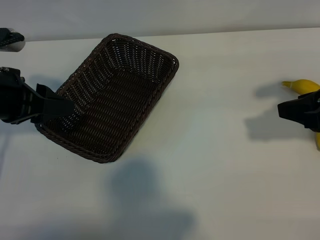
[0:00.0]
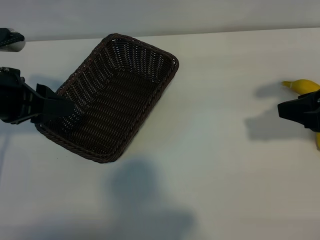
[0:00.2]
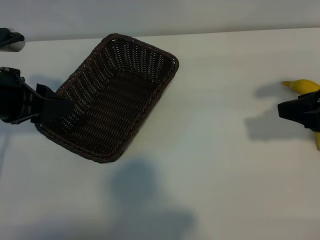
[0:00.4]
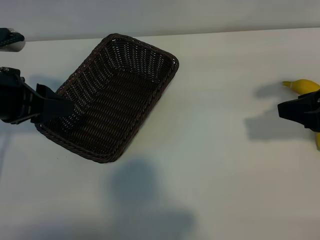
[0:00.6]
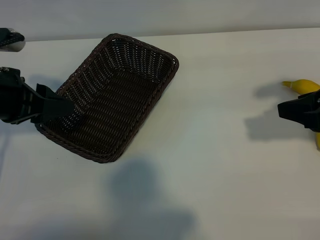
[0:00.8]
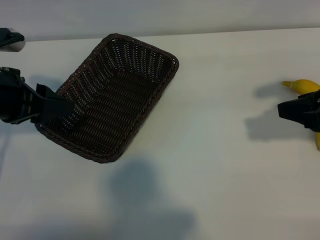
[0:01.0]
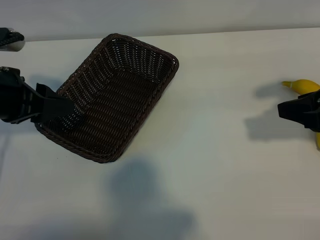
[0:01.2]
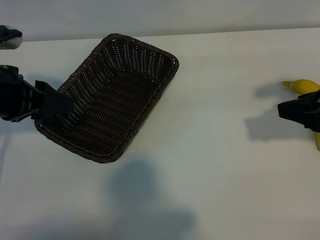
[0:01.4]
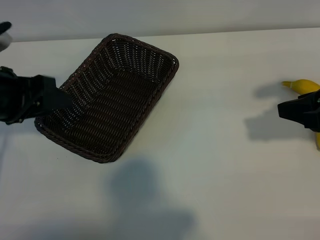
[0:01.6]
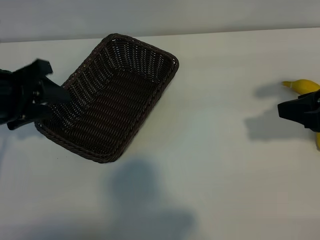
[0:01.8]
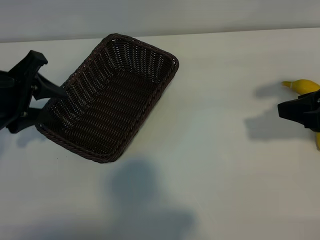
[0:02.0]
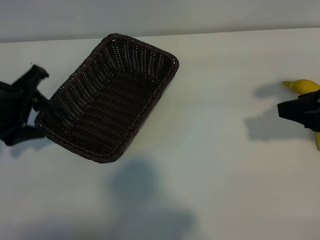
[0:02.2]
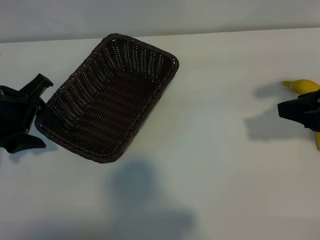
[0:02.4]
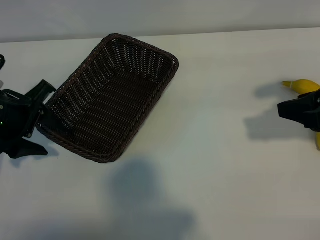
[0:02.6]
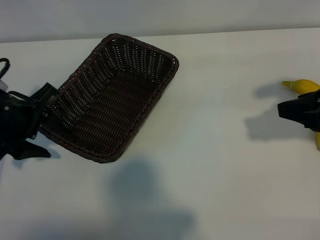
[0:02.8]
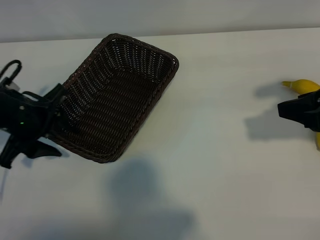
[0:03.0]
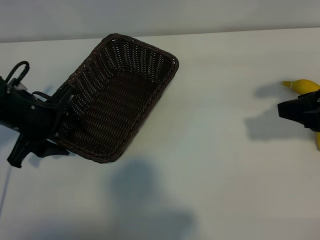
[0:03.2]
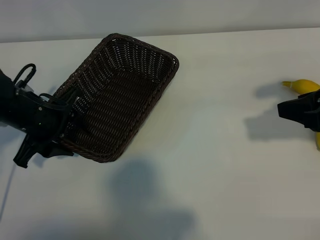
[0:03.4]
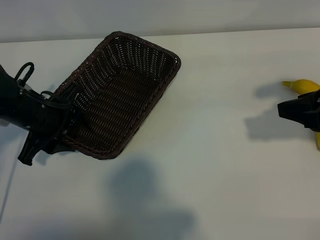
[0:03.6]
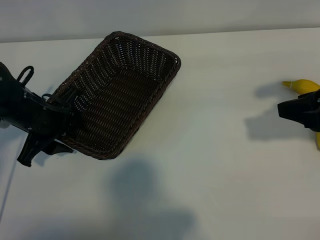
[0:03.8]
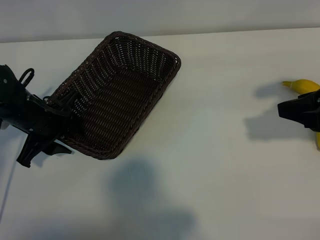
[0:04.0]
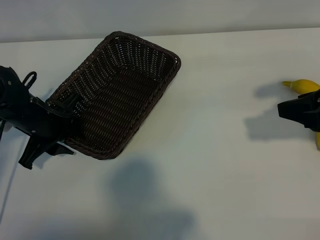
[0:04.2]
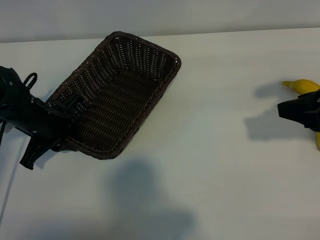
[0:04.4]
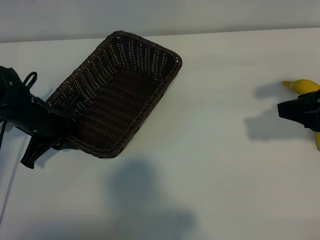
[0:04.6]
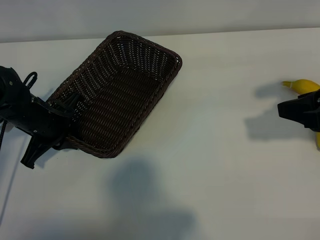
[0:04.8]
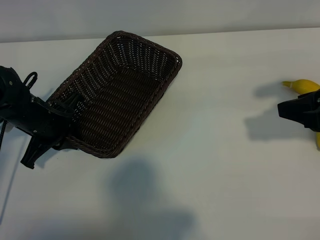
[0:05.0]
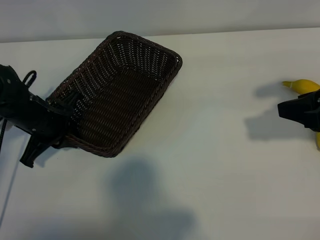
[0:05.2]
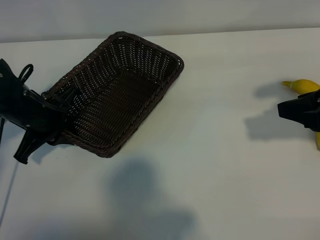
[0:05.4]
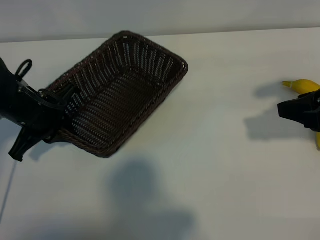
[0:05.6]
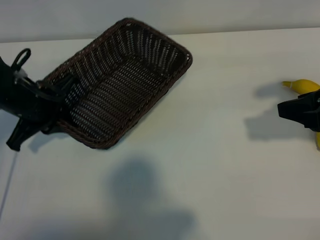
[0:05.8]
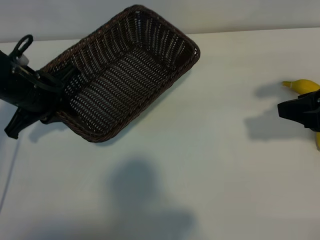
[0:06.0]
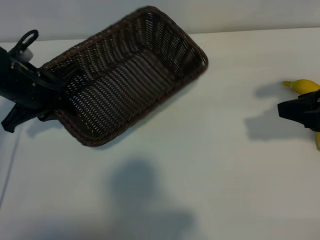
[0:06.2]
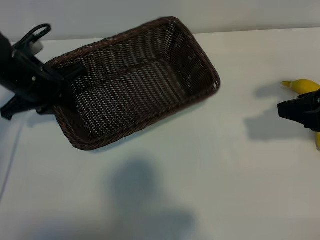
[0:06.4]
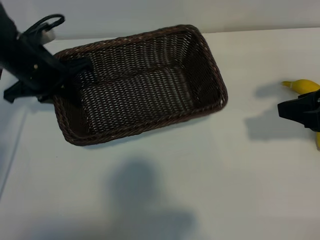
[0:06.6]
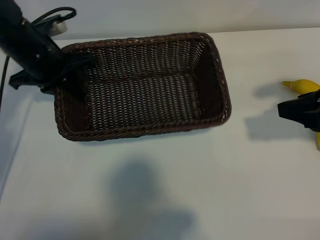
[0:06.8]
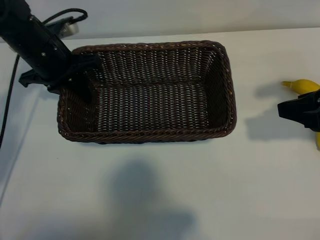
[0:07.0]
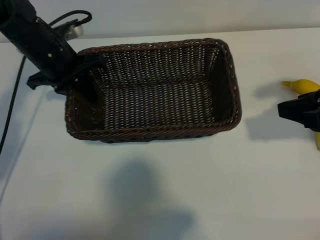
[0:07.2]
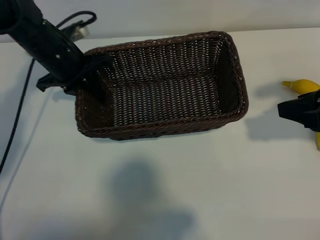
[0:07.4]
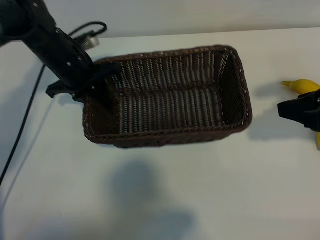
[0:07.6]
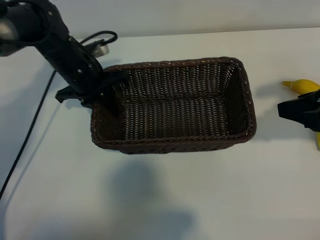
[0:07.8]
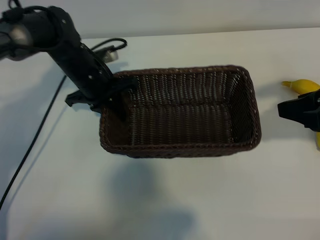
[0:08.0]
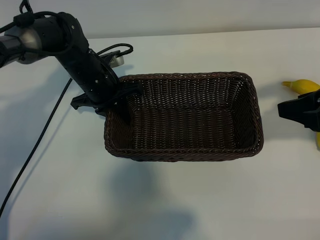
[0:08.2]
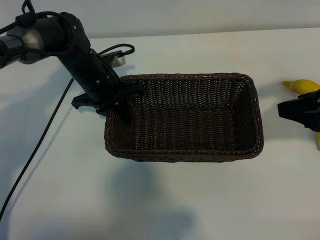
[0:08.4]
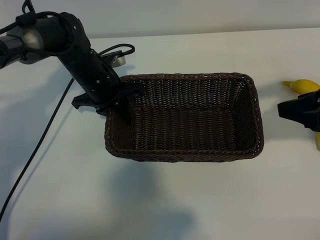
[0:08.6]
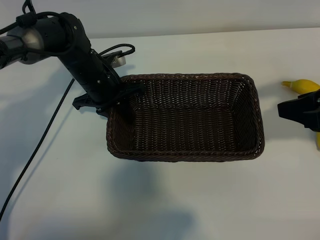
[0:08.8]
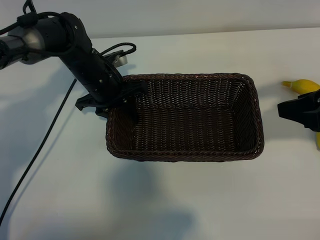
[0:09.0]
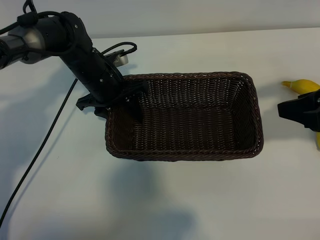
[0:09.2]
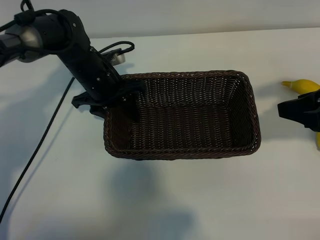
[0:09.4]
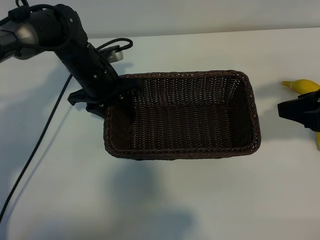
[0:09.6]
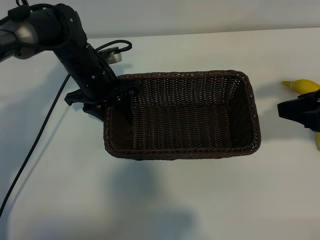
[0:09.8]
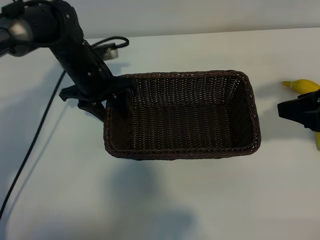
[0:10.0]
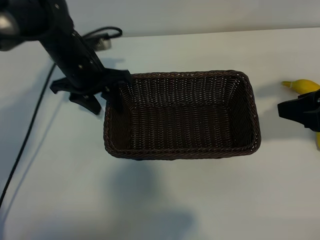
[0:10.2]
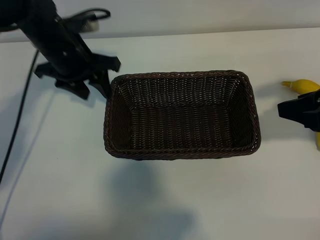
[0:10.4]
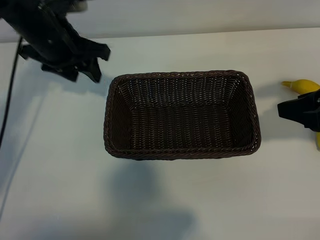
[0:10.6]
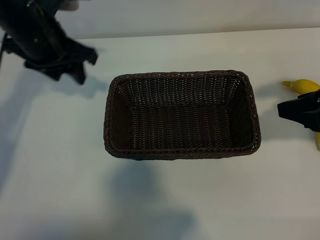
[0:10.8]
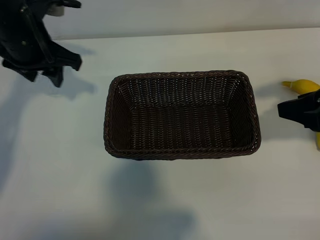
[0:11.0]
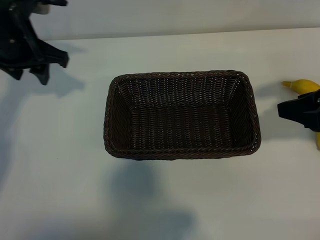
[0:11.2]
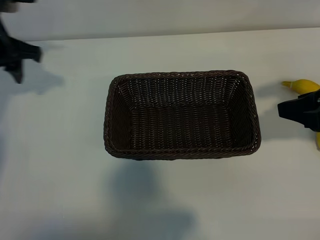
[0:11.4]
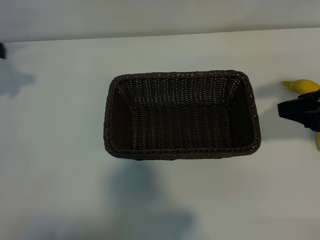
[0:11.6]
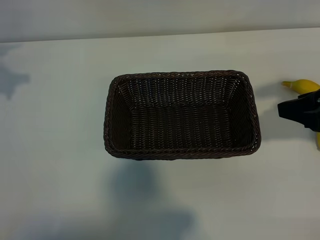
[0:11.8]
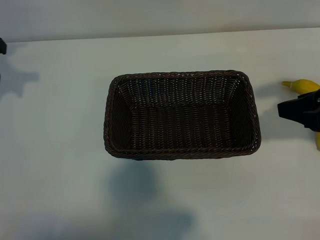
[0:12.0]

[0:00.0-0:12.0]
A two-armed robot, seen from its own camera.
Task of the whole recording: pick up the banana and put it into the basket.
Step, 0:01.2 to 0:04.6: Grasp the basket with the left gripper.
Step, 0:04.8 to 0:10.0: Place the basket in the center of the table with the left gripper.

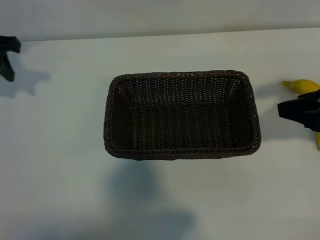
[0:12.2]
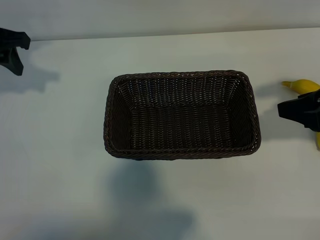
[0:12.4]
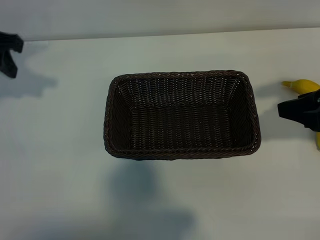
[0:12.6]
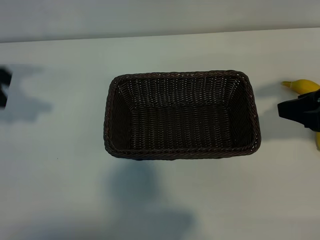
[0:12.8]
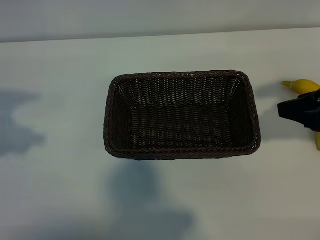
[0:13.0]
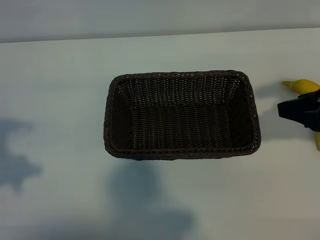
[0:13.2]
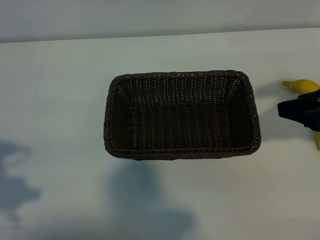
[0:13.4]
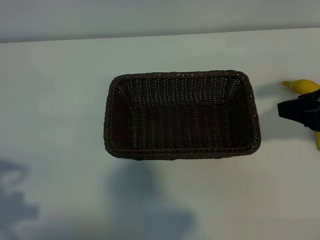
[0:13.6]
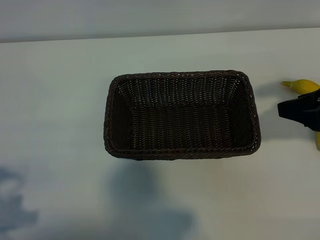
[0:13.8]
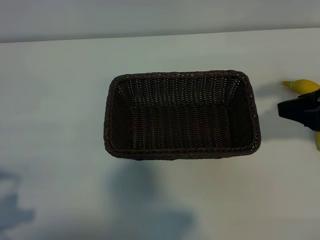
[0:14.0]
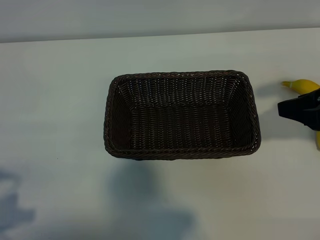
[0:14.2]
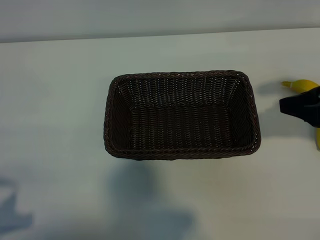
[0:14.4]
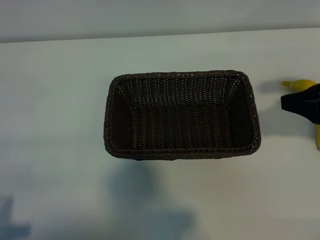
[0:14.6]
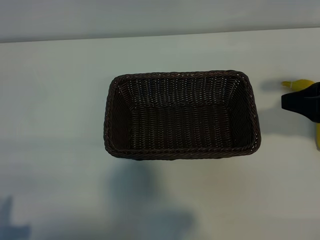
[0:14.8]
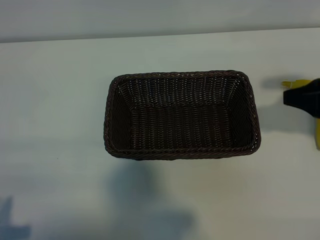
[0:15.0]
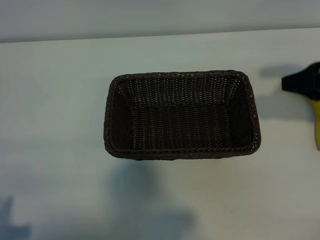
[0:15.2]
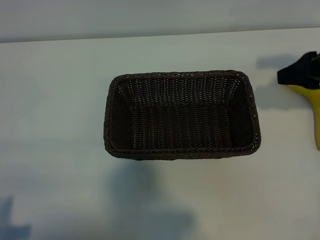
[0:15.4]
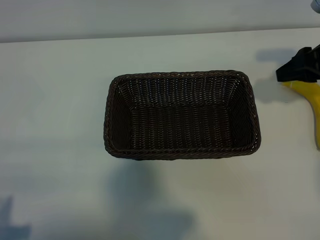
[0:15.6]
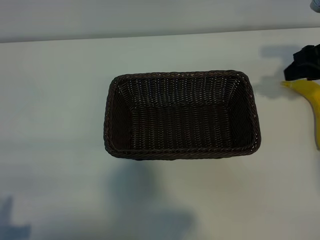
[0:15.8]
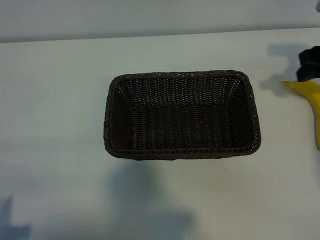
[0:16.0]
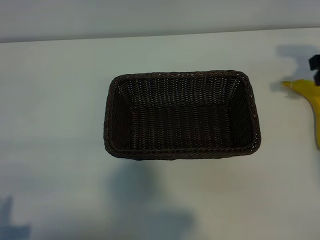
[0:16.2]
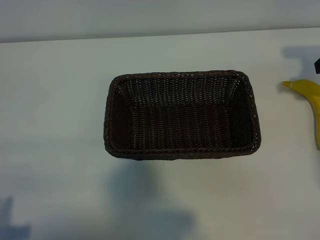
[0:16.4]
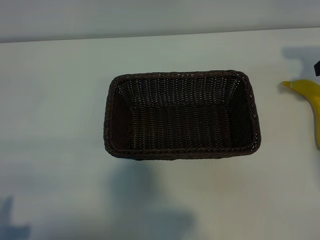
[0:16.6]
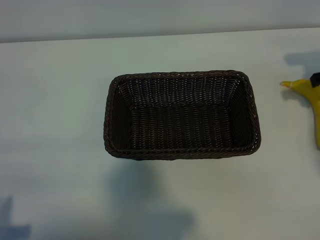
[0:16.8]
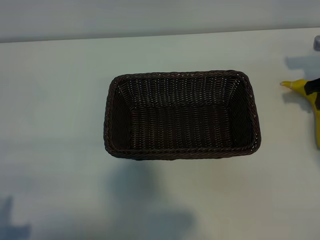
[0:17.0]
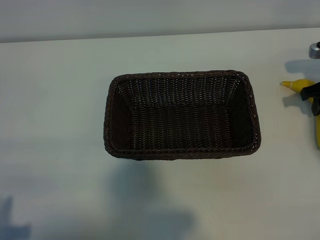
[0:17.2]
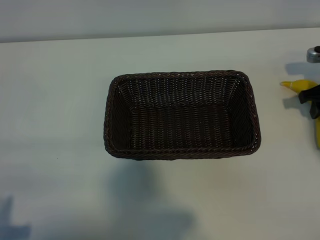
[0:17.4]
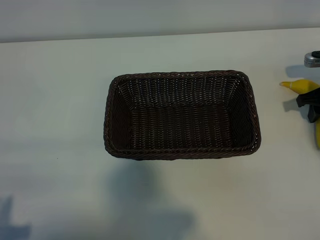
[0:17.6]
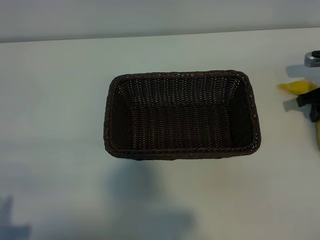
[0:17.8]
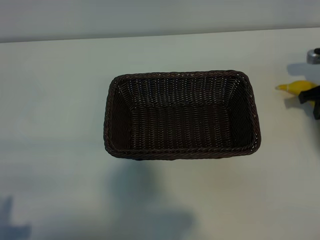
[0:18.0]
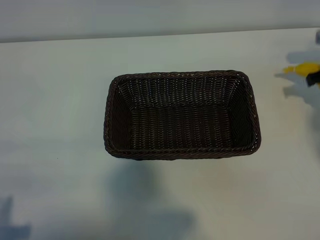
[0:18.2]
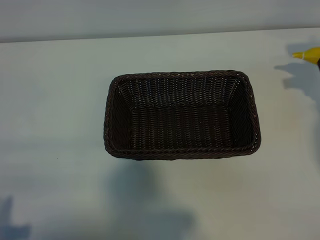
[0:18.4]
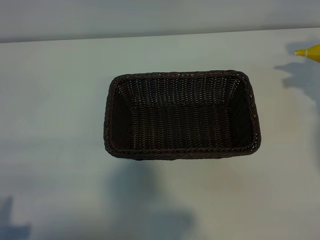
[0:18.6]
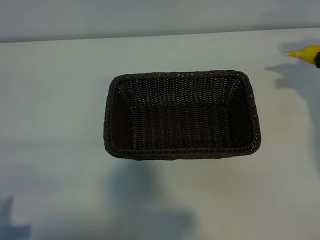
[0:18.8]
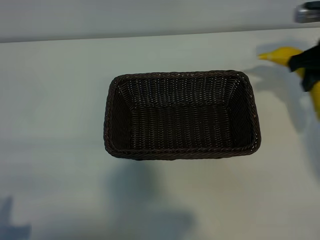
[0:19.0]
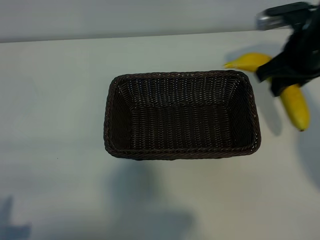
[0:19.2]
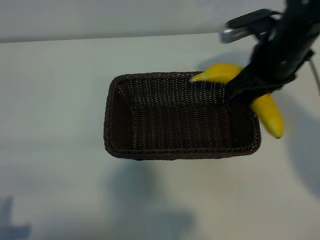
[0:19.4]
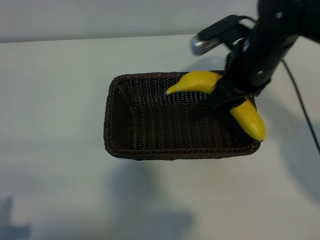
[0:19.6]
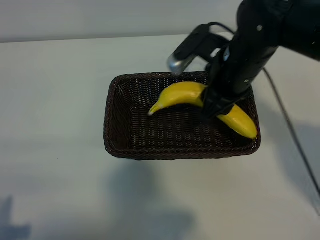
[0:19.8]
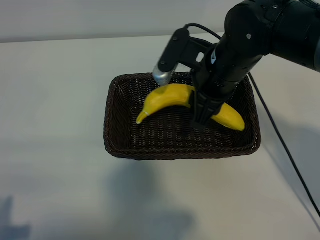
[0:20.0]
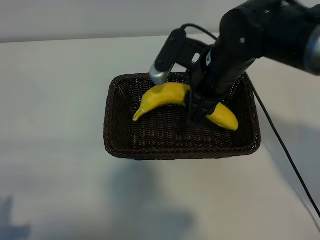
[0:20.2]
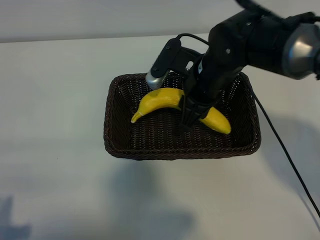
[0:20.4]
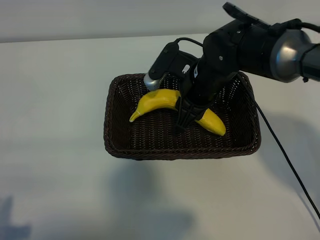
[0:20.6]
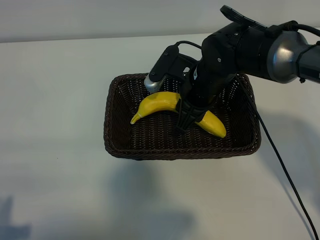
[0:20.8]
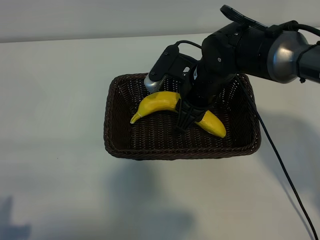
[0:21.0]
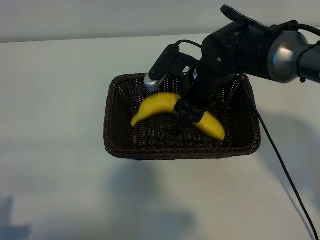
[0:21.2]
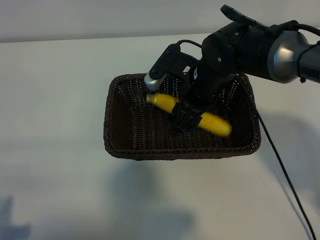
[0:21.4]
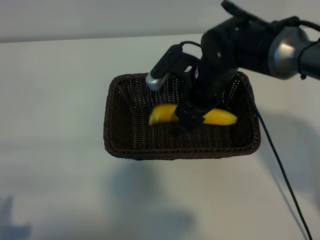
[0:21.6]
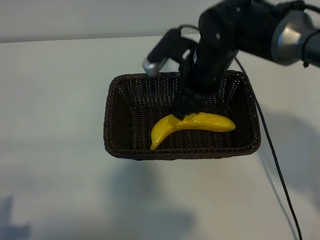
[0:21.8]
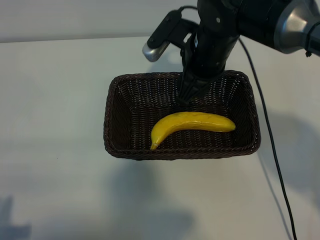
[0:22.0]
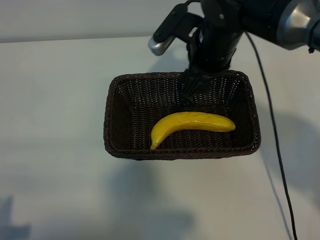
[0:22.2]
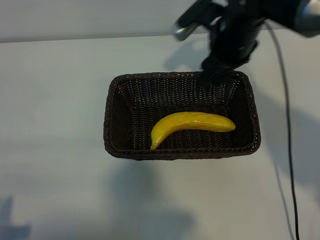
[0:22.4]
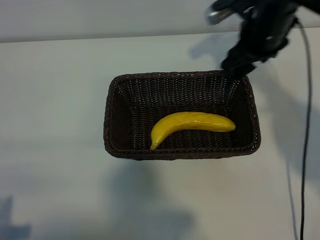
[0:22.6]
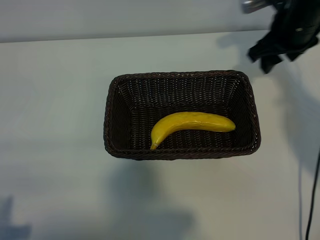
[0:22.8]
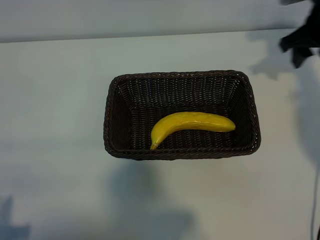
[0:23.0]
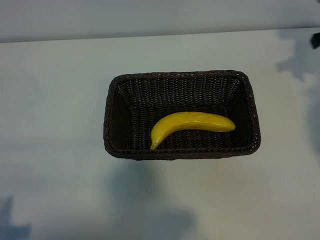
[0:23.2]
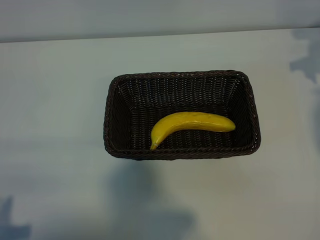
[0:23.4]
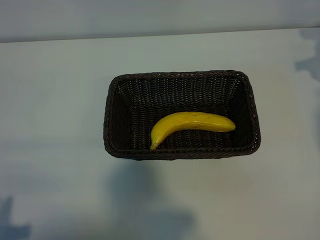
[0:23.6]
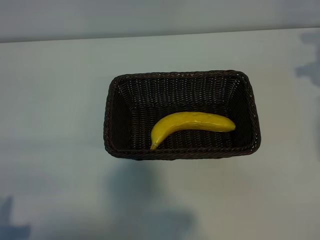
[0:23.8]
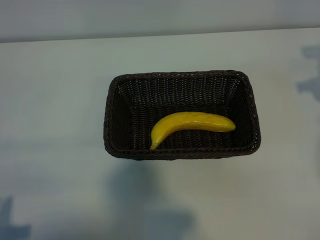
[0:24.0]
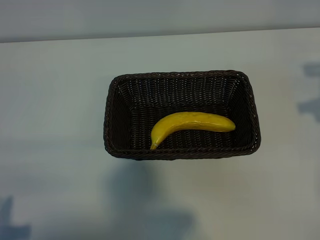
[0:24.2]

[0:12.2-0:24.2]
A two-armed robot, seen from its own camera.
Task of the whole recording: pick up the banana and put it into the basket.
Step, 0:12.2 to 0:18.0: Grasp the banana with right gripper.
Step, 0:18.2 to 0:21.8: Place the banana in the basket with right gripper.
